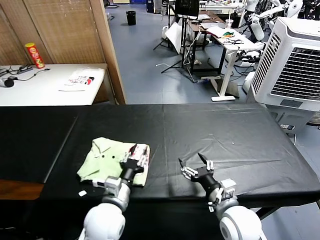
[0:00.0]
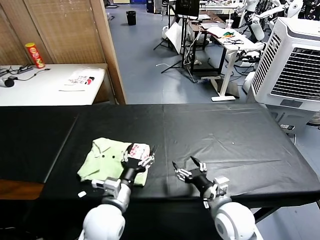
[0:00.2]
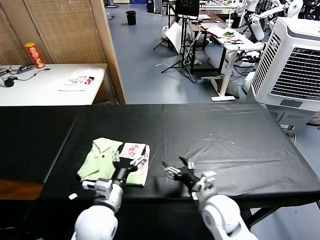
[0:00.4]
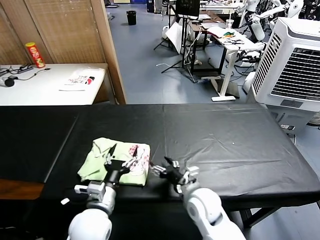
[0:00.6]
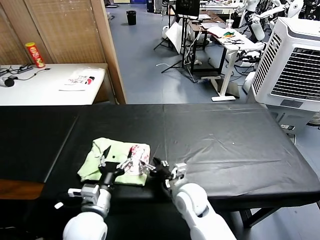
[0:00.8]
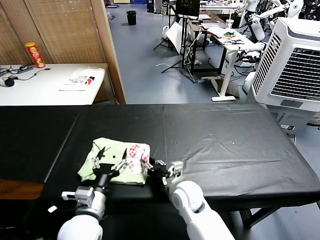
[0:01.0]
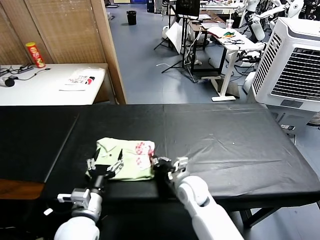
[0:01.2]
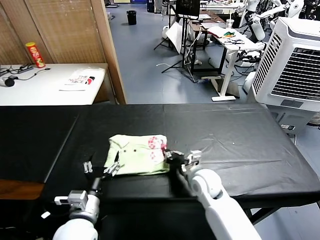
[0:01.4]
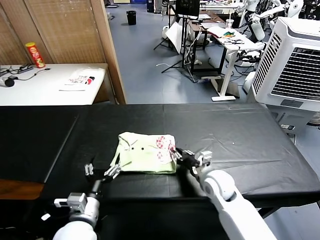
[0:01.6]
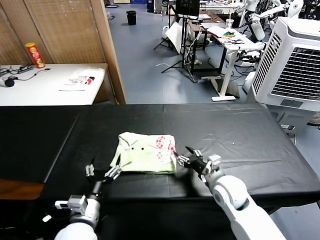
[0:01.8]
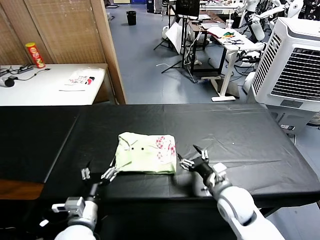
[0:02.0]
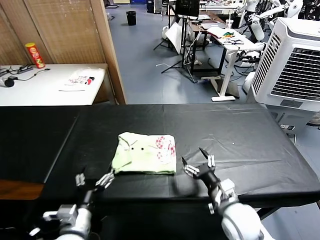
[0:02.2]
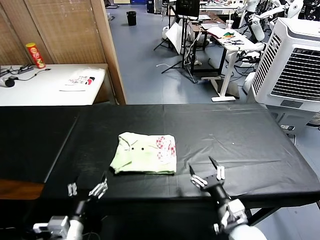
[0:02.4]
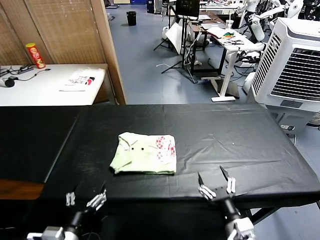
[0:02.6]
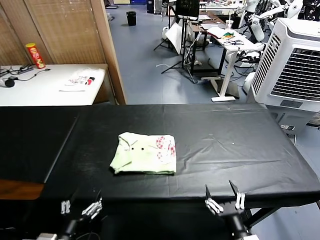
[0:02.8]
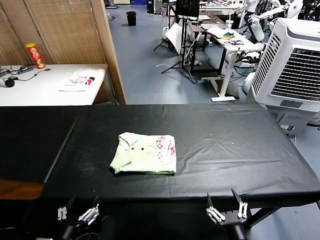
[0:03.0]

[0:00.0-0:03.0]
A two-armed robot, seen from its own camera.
Task of the whole recording: fold and organize the clothes.
Step, 0:00.2 to 0:01.6: Drag the clothes to the center of the table.
0:00.0 to 0:01.6: The left gripper moves to the left, approximately 5 cm, and opens its fingers, while the right gripper heads forward, covering about 15 cm, and closes its fingers.
0:01.6 to 0:03.0: The right gripper is displaced backward by approximately 30 cm, and opens. The left gripper is displaced backward by about 10 cm.
